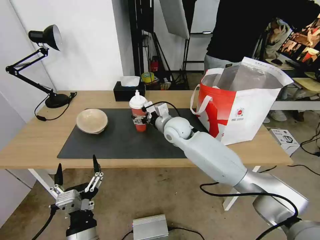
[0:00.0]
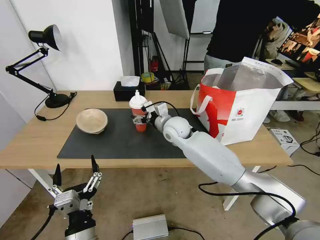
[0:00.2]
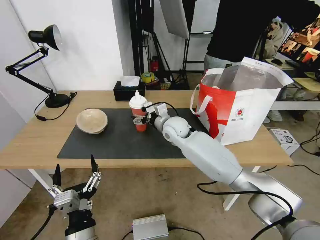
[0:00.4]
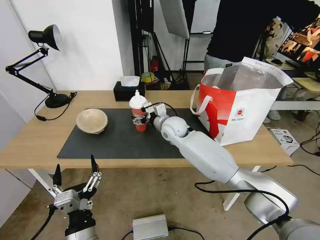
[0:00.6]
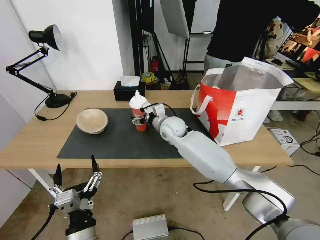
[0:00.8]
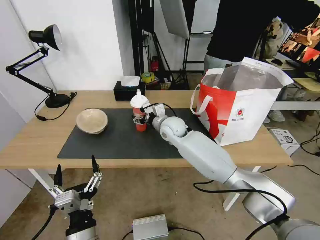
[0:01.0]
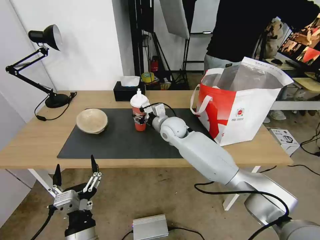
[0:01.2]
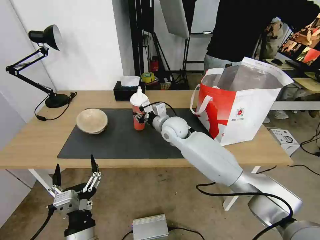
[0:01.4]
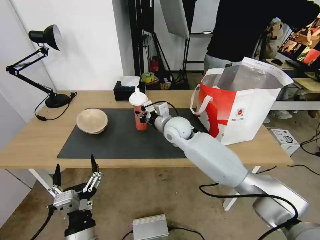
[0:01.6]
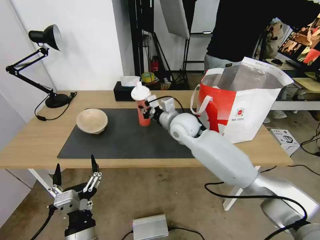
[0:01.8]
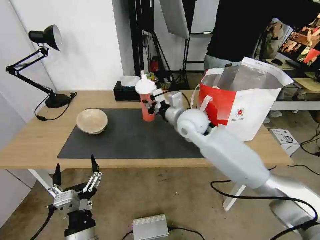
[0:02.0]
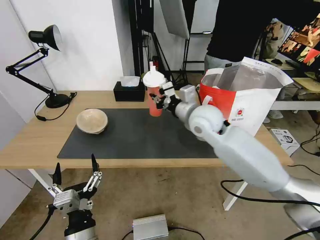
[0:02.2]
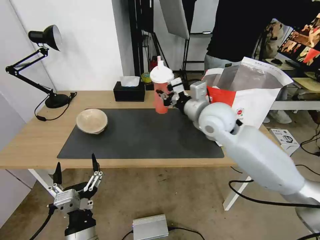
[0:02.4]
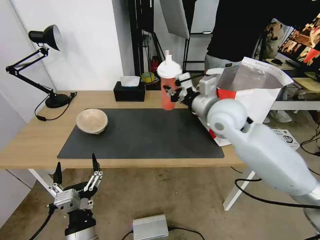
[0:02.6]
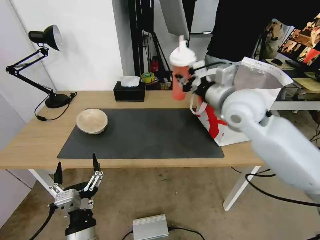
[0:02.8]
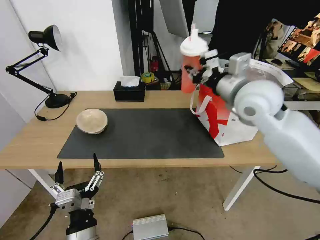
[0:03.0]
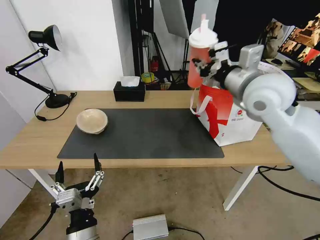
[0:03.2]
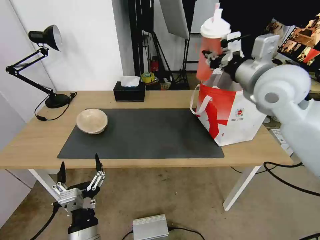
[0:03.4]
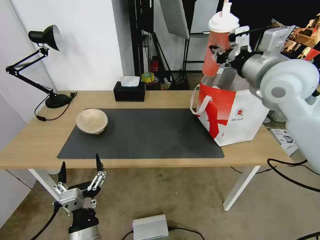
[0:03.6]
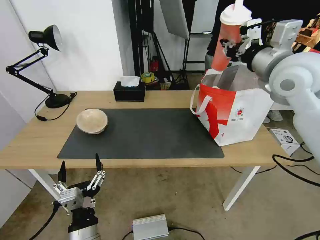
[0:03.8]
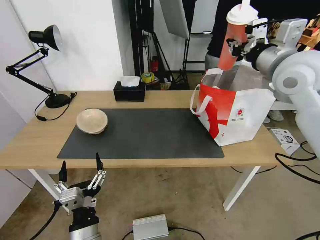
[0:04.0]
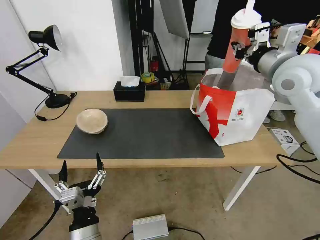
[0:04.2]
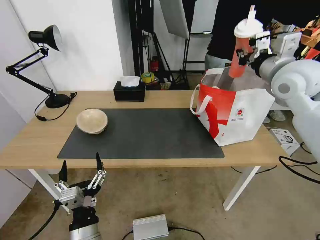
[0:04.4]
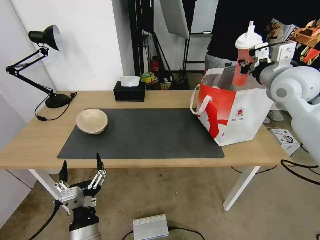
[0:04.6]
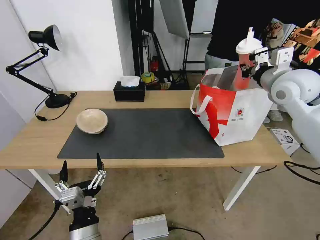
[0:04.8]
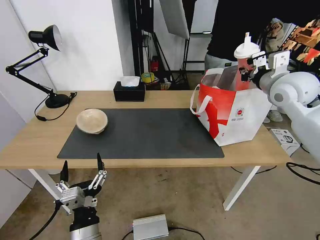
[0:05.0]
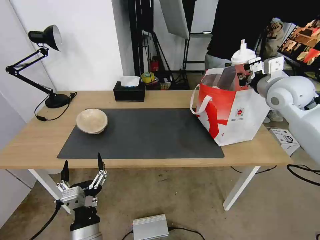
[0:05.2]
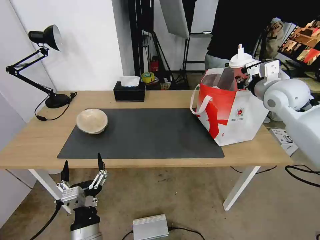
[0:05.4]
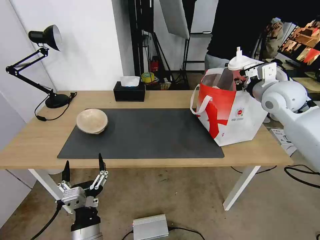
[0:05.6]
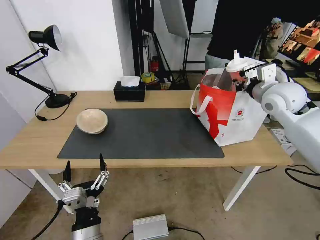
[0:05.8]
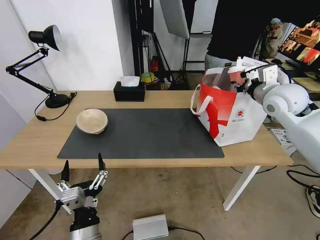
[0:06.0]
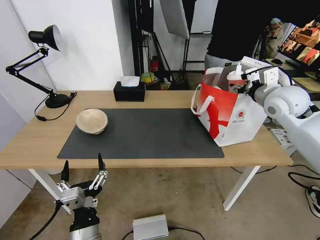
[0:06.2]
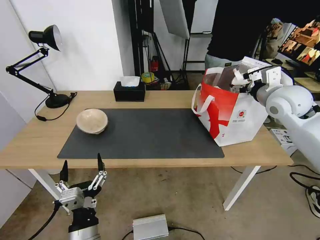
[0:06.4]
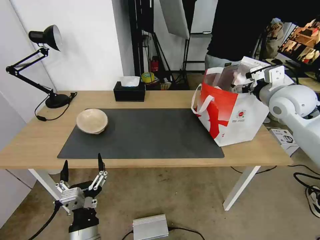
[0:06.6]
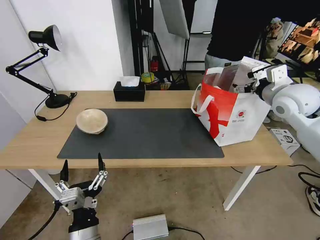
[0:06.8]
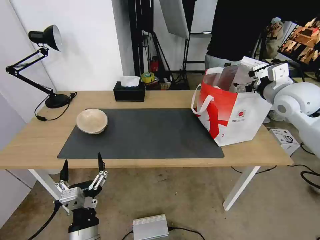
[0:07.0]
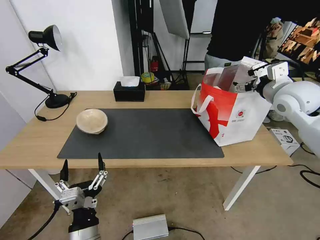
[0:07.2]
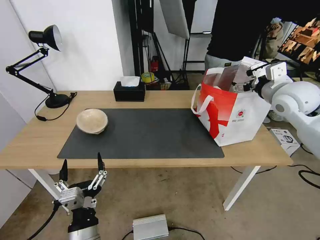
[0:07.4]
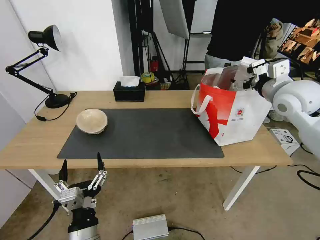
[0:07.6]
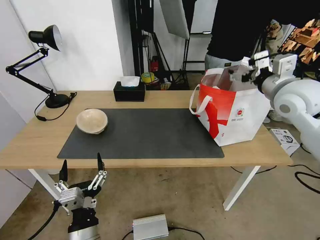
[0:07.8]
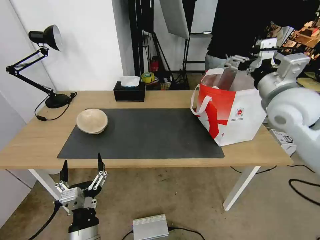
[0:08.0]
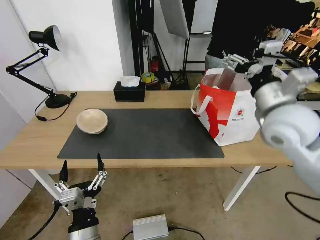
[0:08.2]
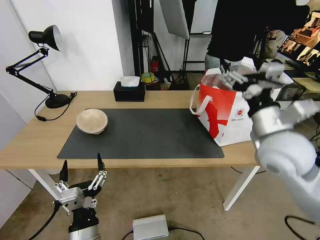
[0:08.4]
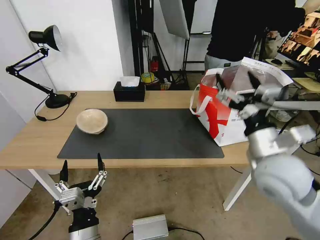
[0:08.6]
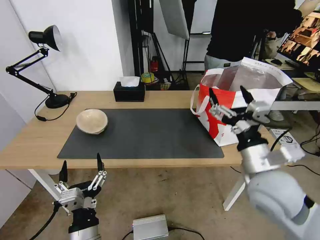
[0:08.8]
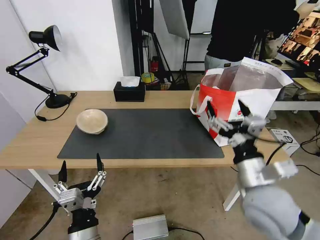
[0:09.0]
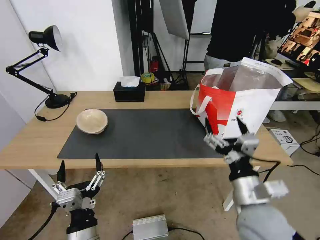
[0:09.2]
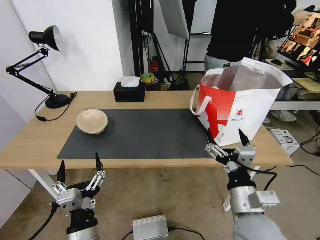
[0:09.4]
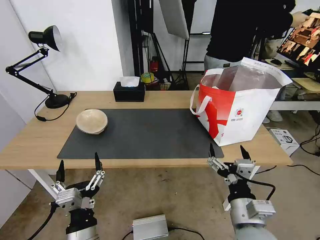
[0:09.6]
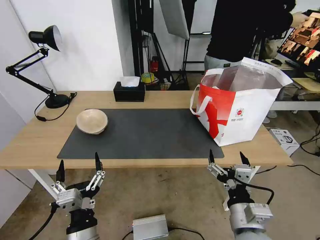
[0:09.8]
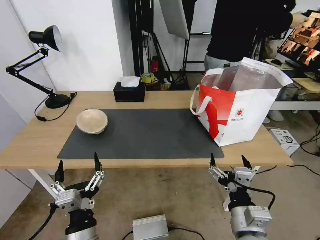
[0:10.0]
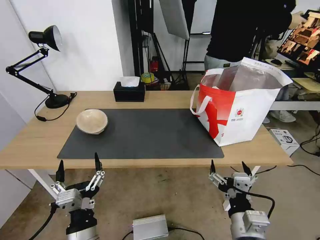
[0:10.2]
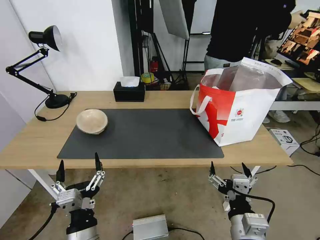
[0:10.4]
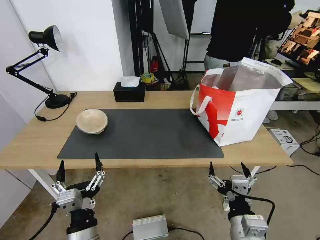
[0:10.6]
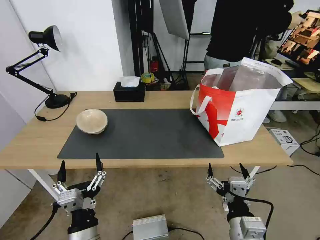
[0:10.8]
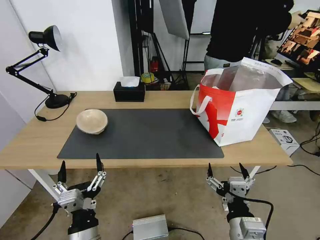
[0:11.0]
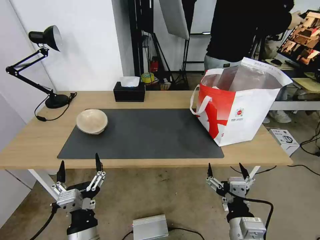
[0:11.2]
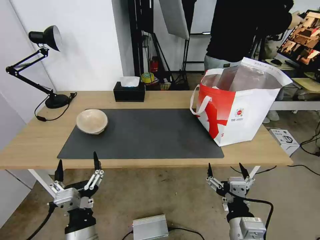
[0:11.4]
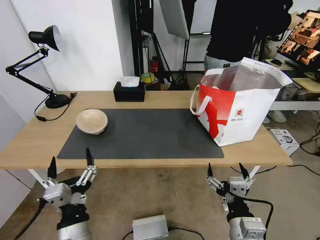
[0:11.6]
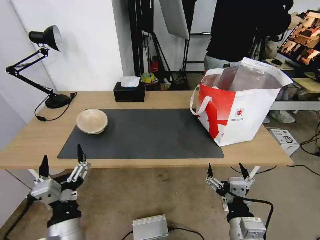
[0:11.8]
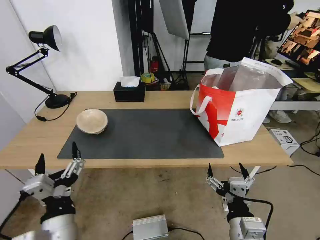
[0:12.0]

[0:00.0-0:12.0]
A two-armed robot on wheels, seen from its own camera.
Task of the whole recording: Pick up the trash from the table and place it into the takeout bag.
0:00.0 to 0:01.6: The right gripper closes its fingers.
0:01.6 to 0:03.0: The right gripper shifts approximately 25 cm upward, to the right and backward.
0:03.0 to 0:04.4: The right gripper shifts approximately 10 cm to the right.
0:04.4 to 0:06.0: The right gripper is displaced downward by approximately 5 cm, and opens its fingers.
0:06.0 to 0:07.6: The right gripper opens.
0:07.6 to 0:09.0: The right gripper goes roughly 30 cm backward, downward and to the left.
0:09.0 to 0:10.4: The right gripper goes some 15 cm backward and downward.
0:10.4 to 0:12.0: The left gripper is displaced upward by approximately 5 cm.

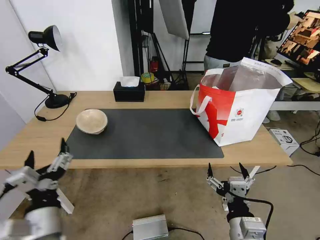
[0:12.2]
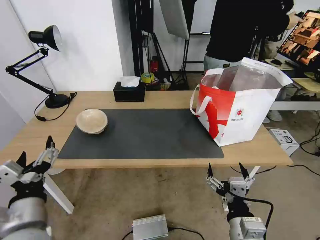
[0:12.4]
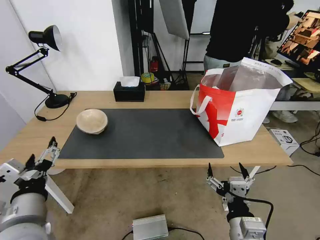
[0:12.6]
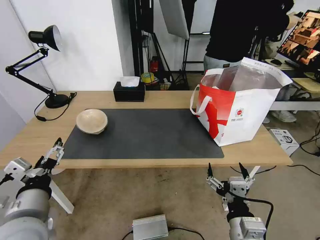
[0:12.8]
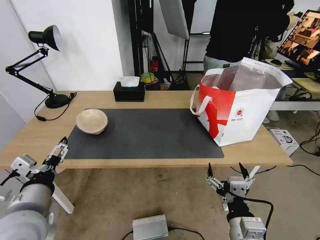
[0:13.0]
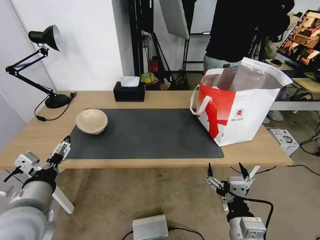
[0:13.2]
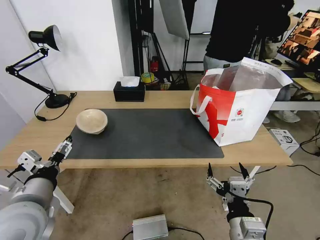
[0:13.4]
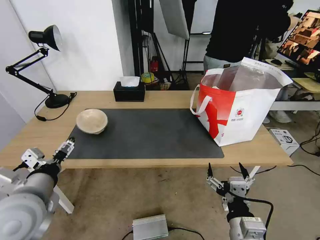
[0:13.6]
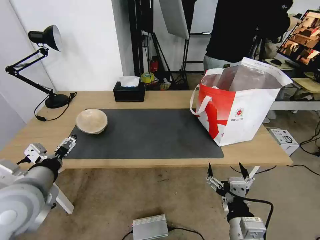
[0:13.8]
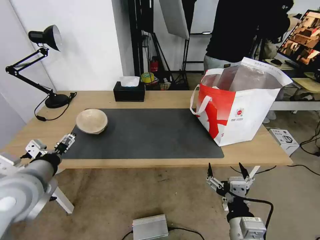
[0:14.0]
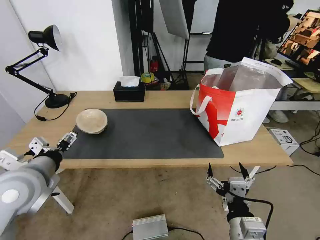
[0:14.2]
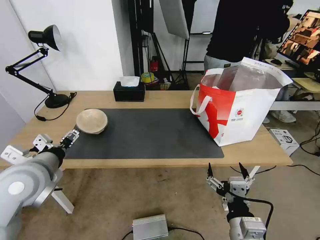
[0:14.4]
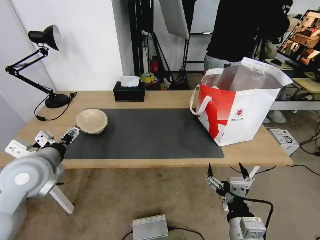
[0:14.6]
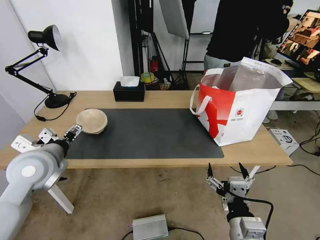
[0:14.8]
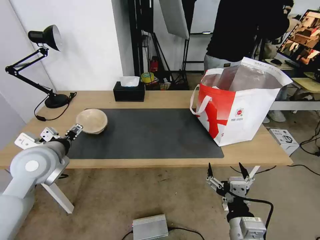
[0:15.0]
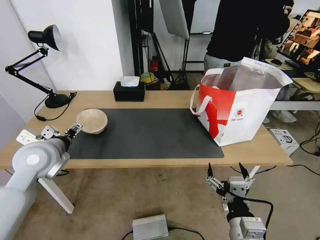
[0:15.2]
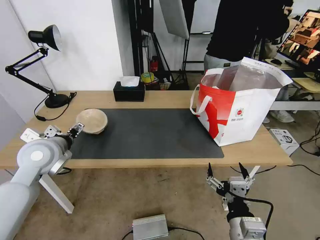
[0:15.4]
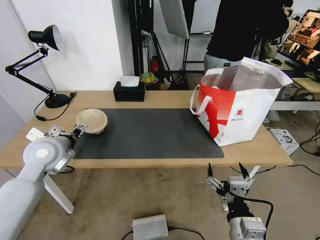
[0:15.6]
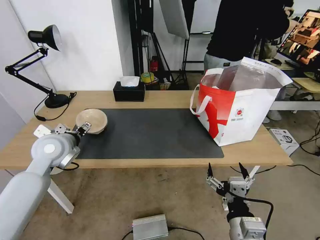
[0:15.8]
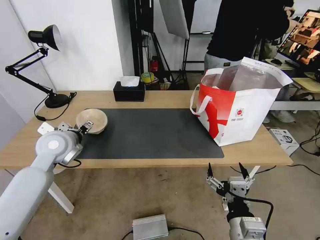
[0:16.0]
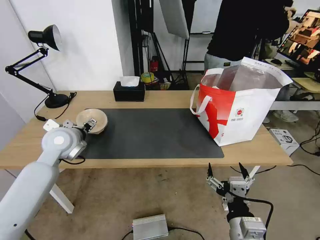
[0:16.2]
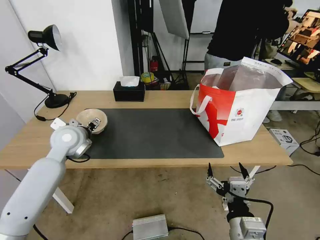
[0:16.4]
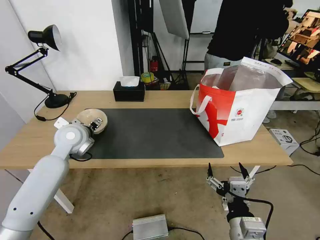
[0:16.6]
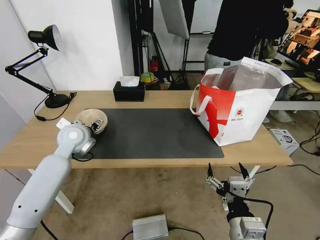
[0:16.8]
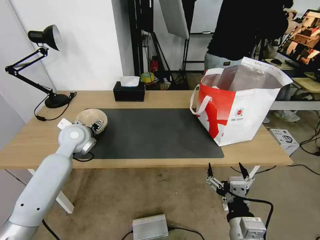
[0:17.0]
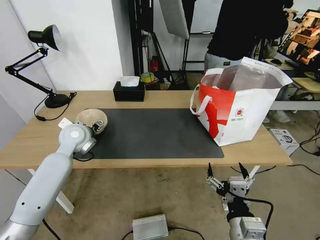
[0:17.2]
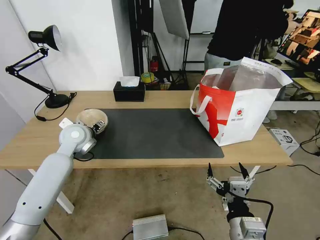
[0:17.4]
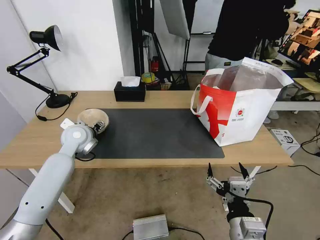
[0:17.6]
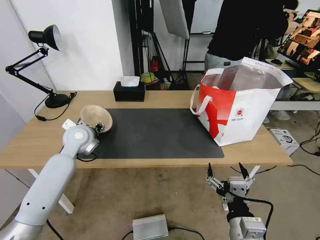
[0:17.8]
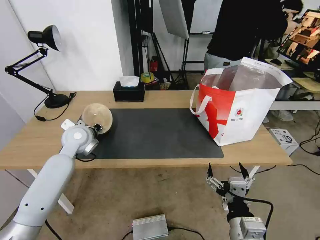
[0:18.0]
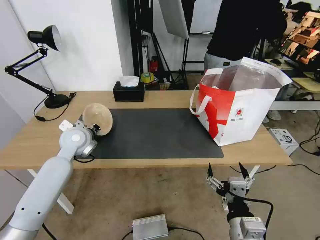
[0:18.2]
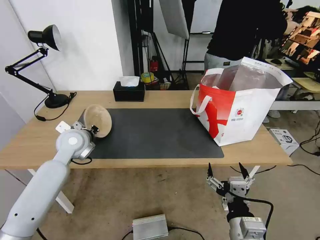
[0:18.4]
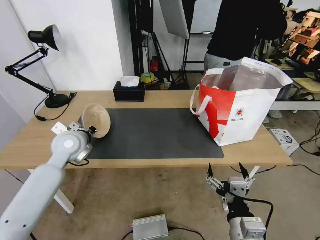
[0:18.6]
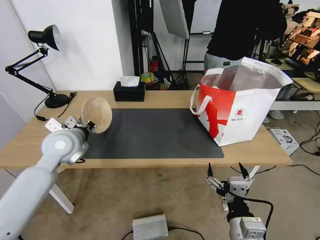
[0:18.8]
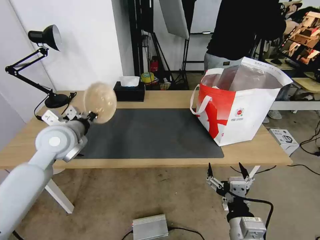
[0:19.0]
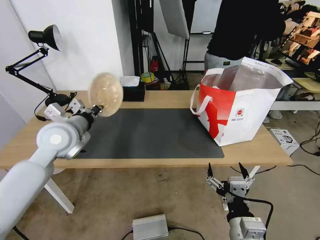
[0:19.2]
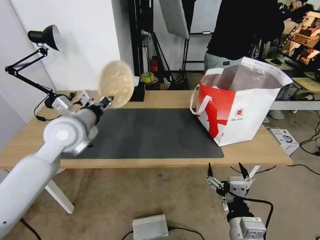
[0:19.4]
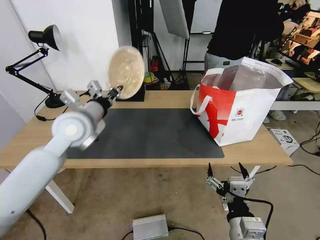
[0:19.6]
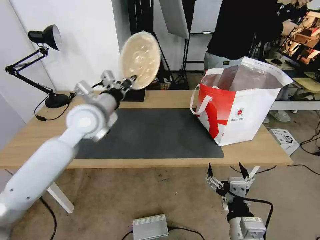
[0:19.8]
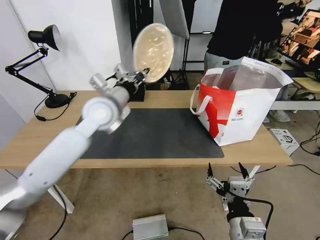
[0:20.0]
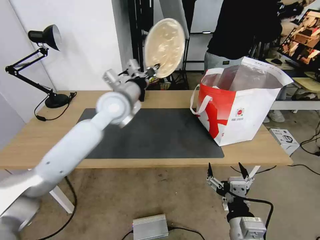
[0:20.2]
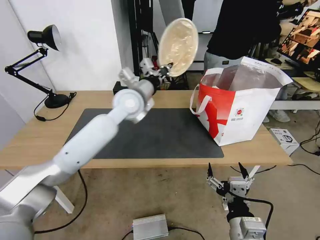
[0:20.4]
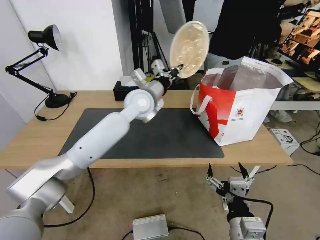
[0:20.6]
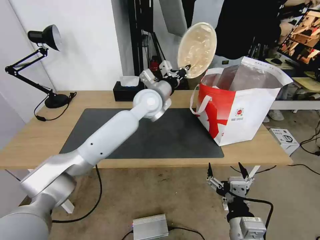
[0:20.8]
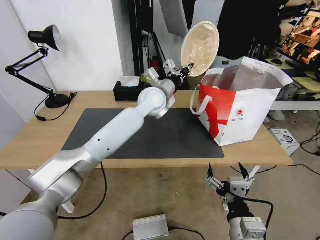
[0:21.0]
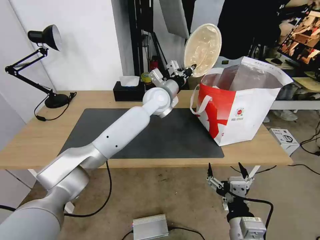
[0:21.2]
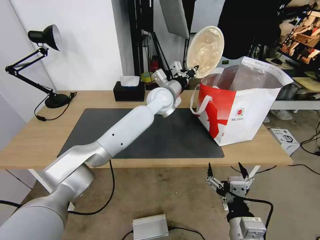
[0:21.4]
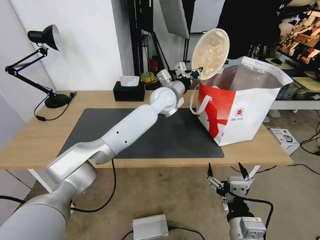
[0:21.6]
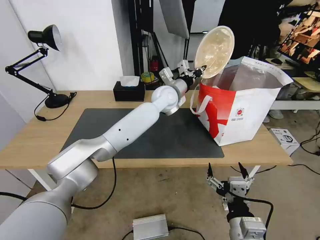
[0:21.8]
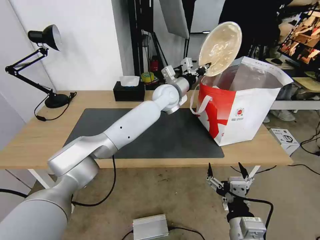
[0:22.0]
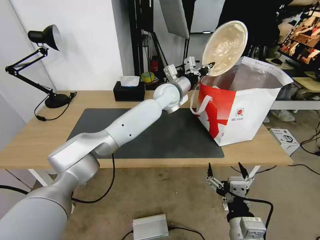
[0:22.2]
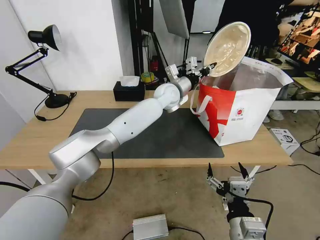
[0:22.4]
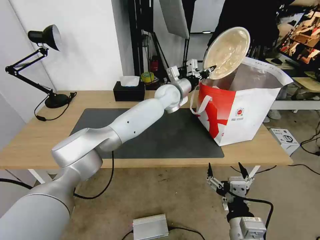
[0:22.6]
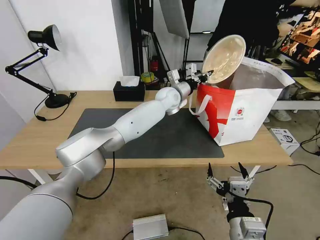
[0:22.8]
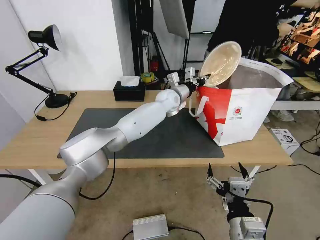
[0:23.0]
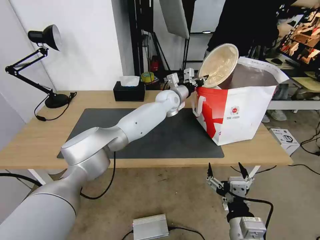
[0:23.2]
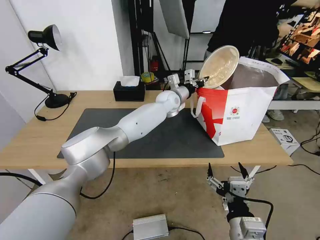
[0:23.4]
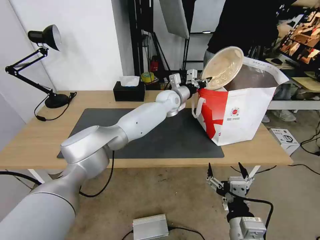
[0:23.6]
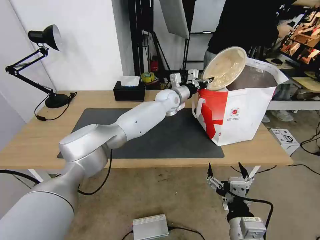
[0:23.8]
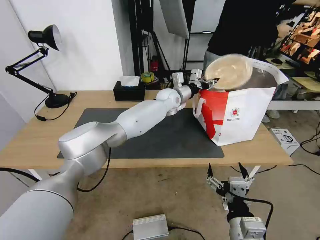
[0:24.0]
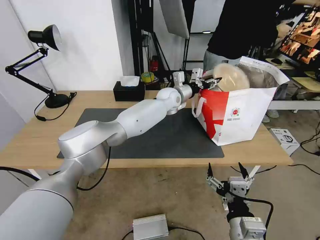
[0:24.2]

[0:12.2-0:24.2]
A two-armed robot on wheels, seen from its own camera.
Task of the whole recording: Pick up the trash from the table and place it into the takeout bag.
0:12.2 to 0:13.8: The left gripper moves forward, upward and to the left, approximately 15 cm.
0:13.8 to 0:15.2: The left gripper shifts some 10 cm forward.
0:15.2 to 0:16.6: The left gripper travels forward by approximately 10 cm.
0:16.6 to 0:18.2: The left gripper closes up.
0:18.2 to 0:19.8: The left gripper is displaced upward and to the right by roughly 15 cm.
0:19.8 to 0:21.2: The left gripper is displaced to the right and forward by approximately 25 cm.
0:21.2 to 0:22.6: The left gripper moves roughly 5 cm.
0:22.6 to 0:24.2: The left gripper opens its fingers.
